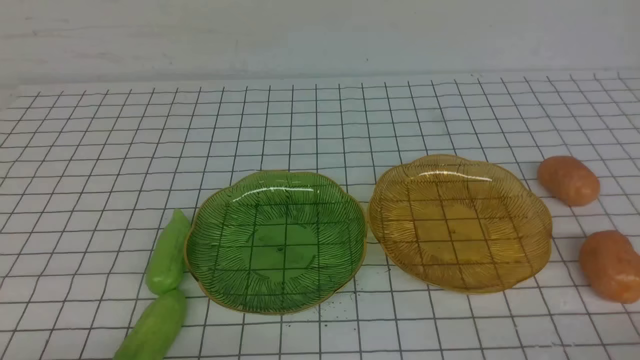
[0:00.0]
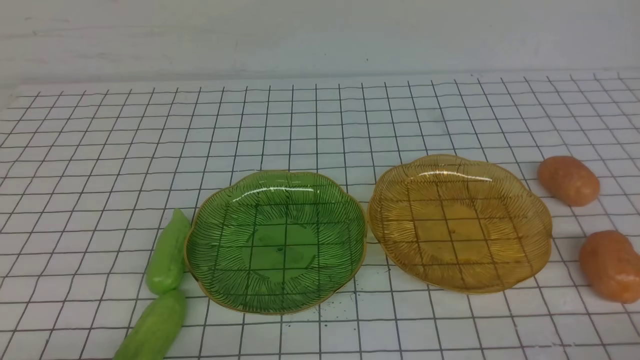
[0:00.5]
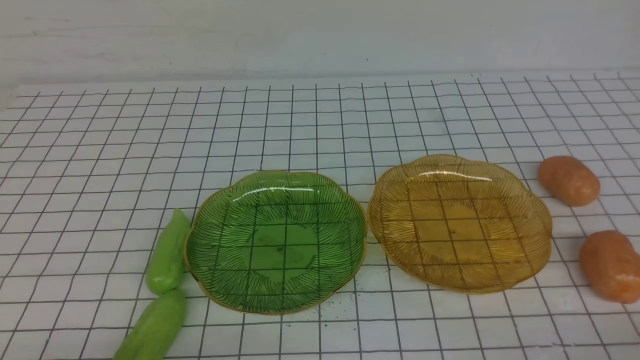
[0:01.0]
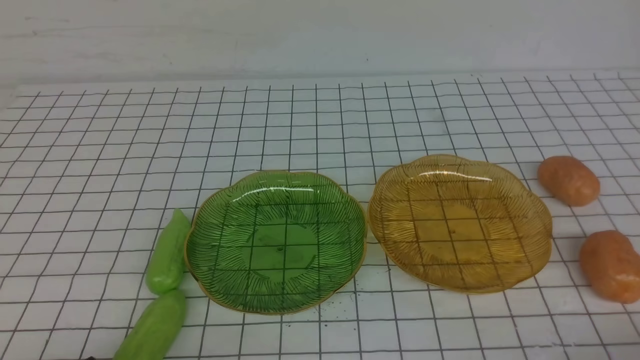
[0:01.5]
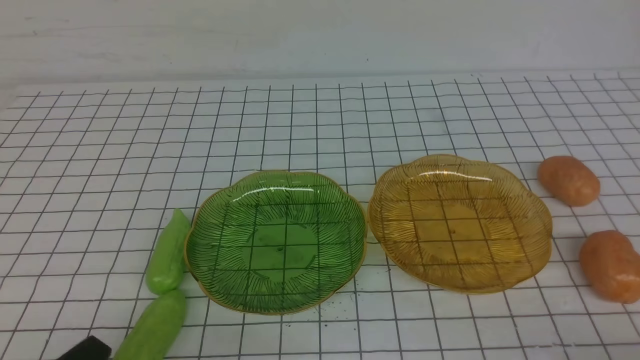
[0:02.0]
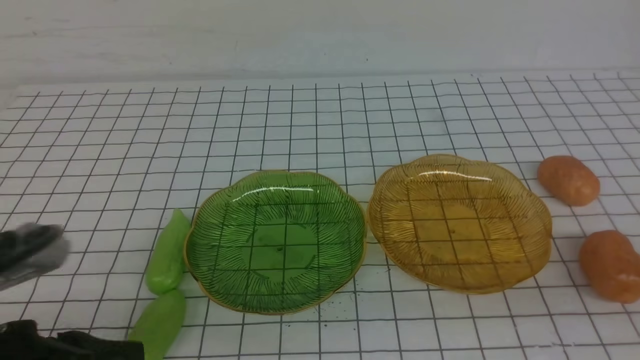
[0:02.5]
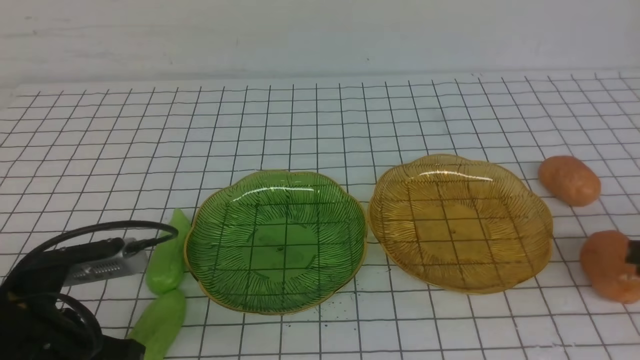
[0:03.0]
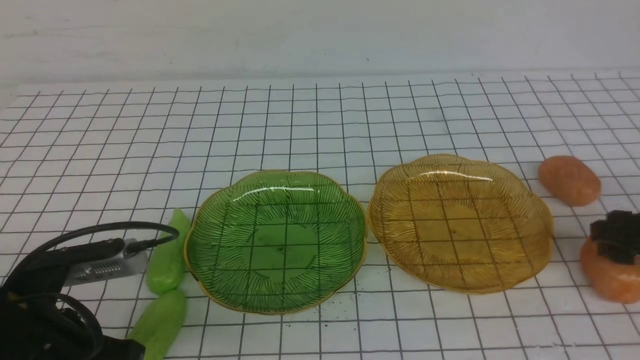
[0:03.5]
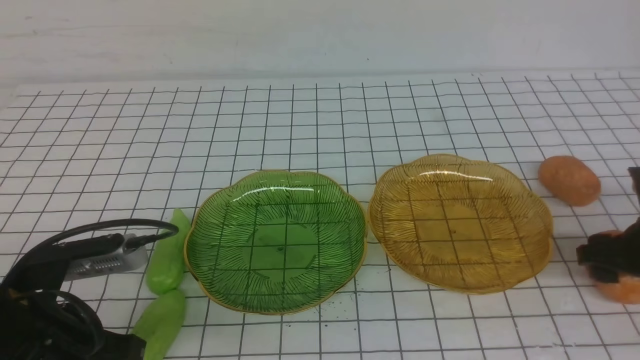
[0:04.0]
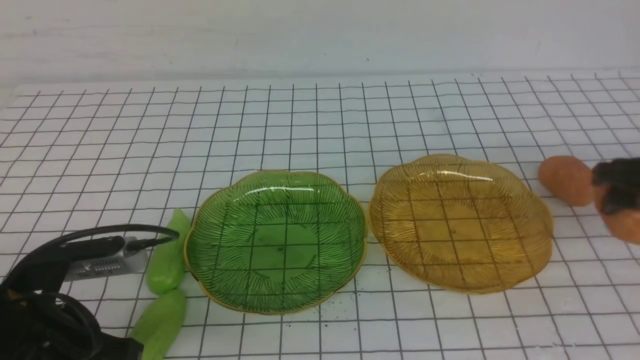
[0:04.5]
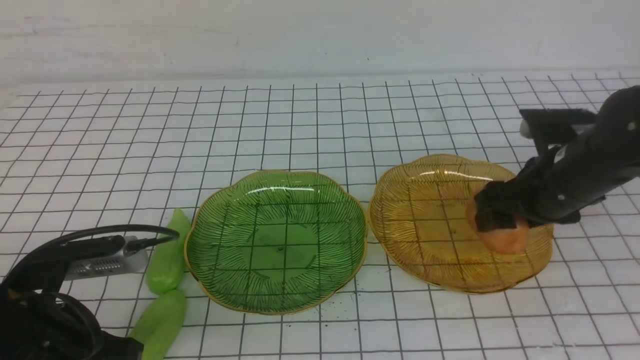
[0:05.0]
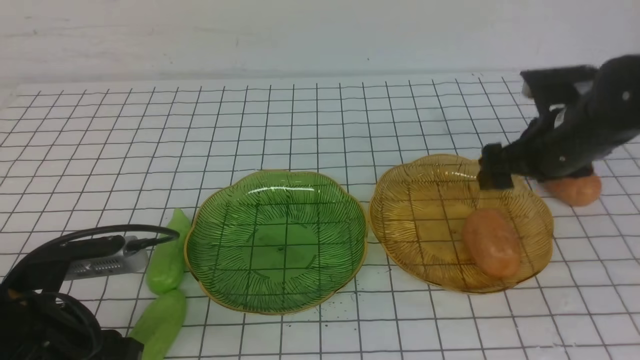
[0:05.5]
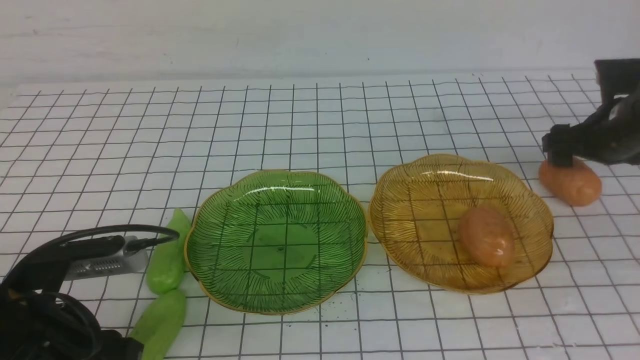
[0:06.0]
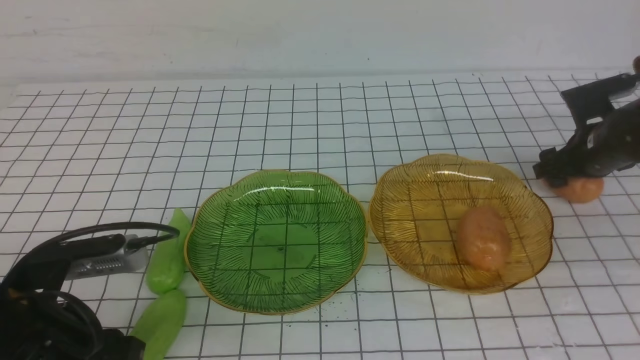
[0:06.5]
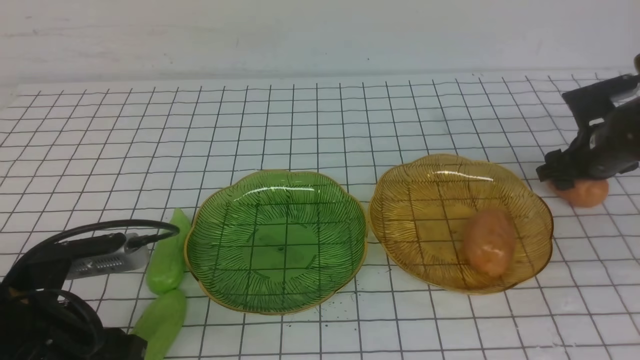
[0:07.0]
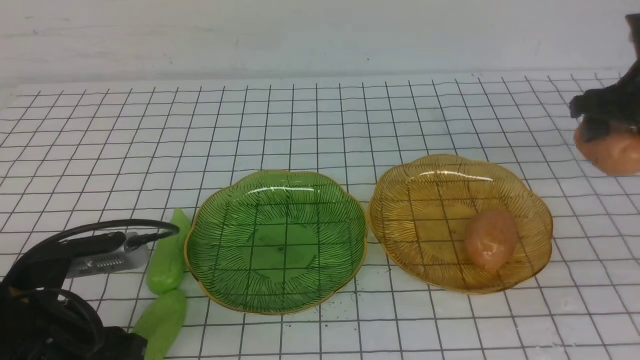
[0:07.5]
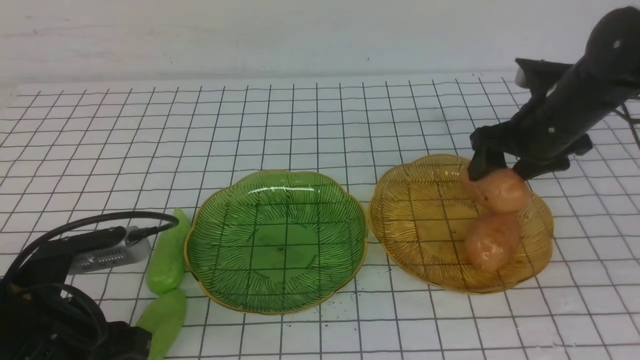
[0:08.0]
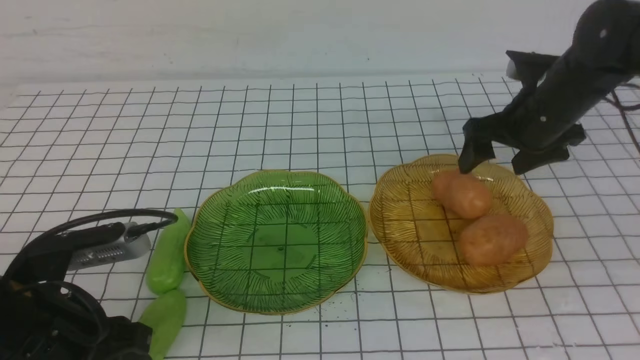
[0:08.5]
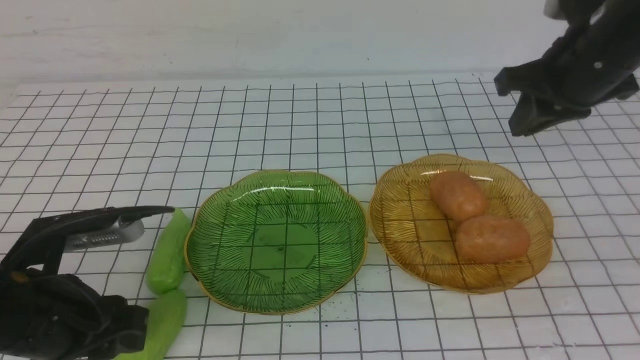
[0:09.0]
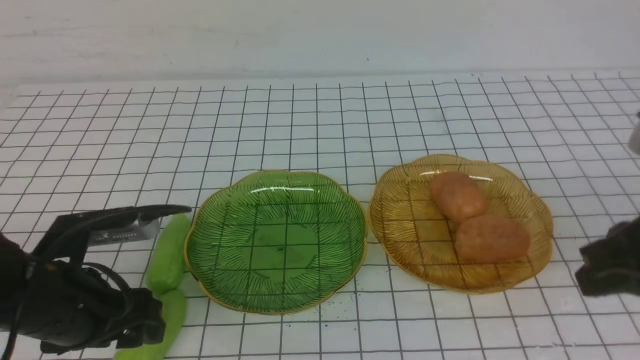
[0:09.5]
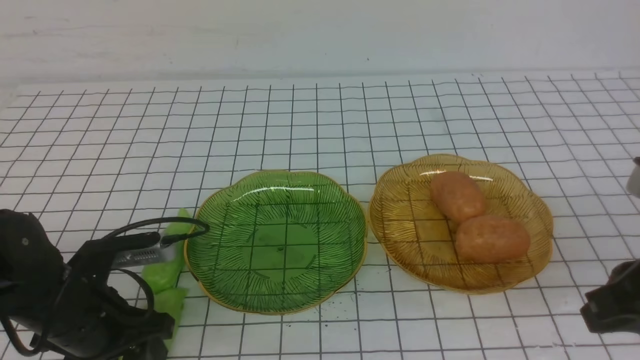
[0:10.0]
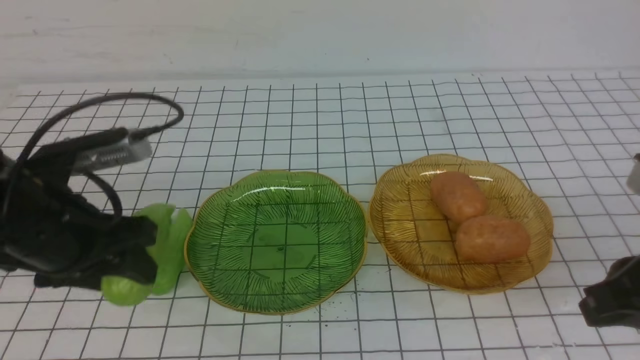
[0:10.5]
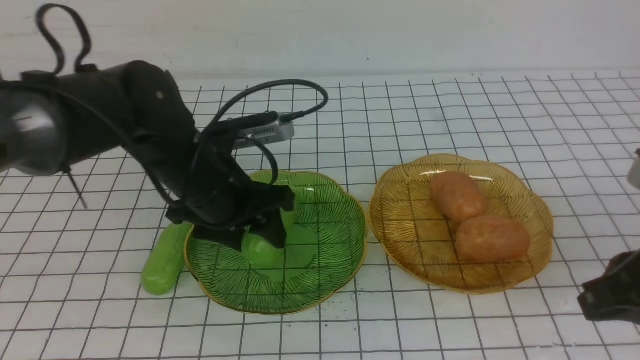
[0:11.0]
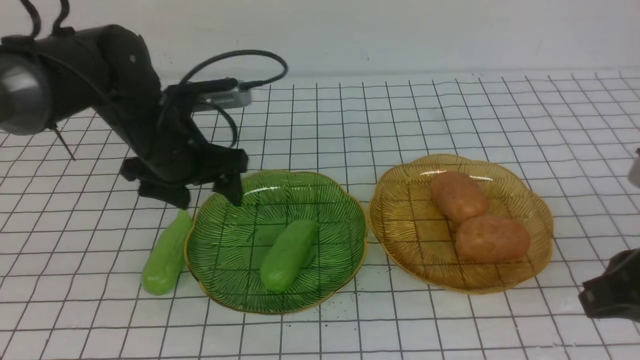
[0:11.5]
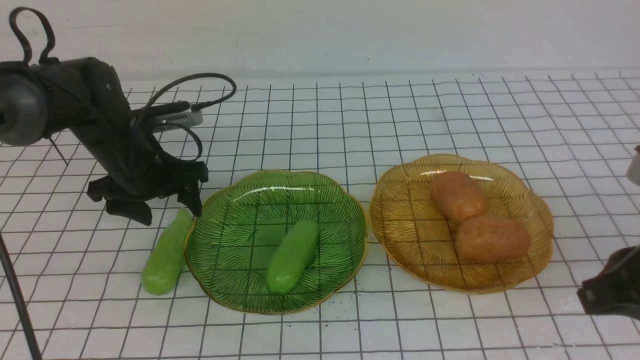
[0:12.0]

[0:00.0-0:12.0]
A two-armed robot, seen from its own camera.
Step, 0:00.0 to 0:08.0: Grab a potato with your right arm and put it on the right plate.
Step, 0:09.0 to 0:11.0: use the left arm to grab a chayote and put it into the left plate.
0:02.0 to 0:04.0: The right gripper moves forward, some 20 cm, and opens its fingers; the left gripper goes approximately 10 cm forward.
0:04.0 to 0:06.0: The left gripper opens its fingers. Meanwhile the right gripper shifts approximately 15 cm forward.
0:06.0 to 0:08.0: The right gripper heads to the left, covering some 10 cm, and goes upward and returns, some 5 cm each way.
0:08.0 to 0:10.0: The right gripper travels backward by roughly 25 cm, and closes its fingers. Meanwhile the left gripper goes about 5 cm forward and downward.
0:10.0 to 0:12.0: The left gripper heads forward, covering about 20 cm.

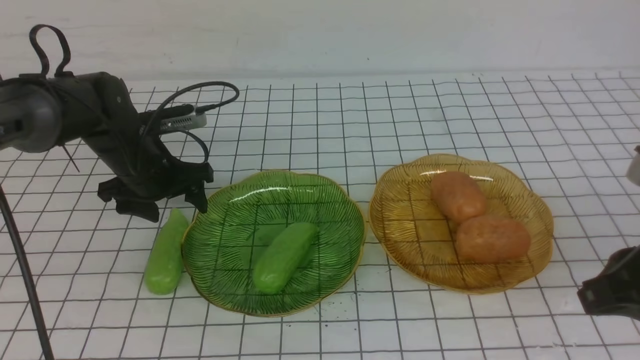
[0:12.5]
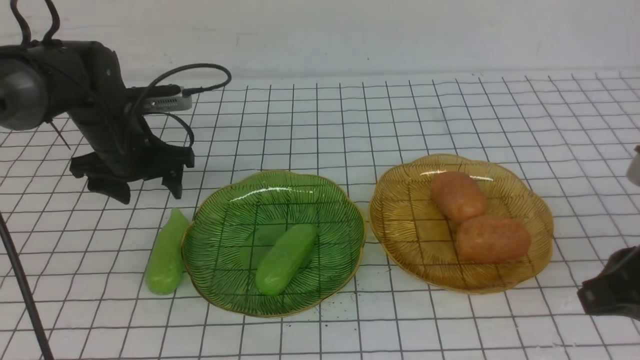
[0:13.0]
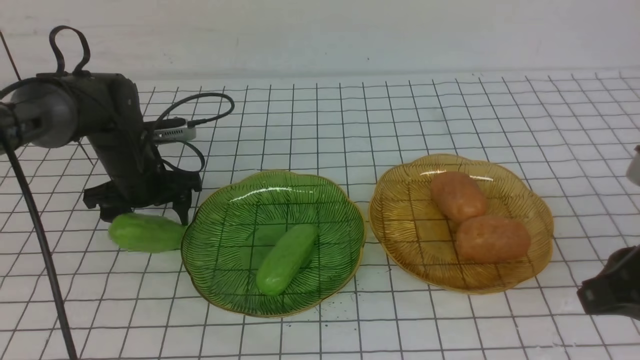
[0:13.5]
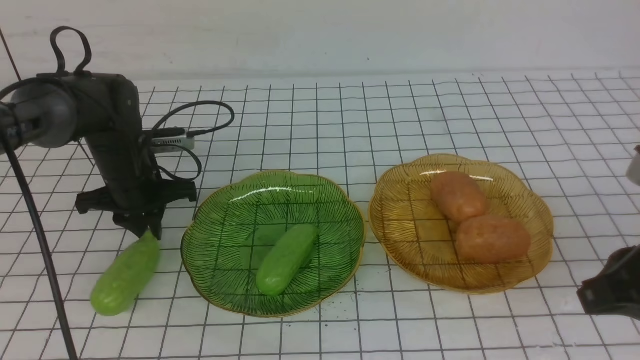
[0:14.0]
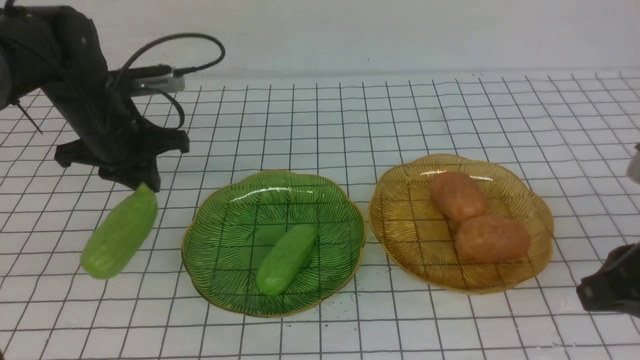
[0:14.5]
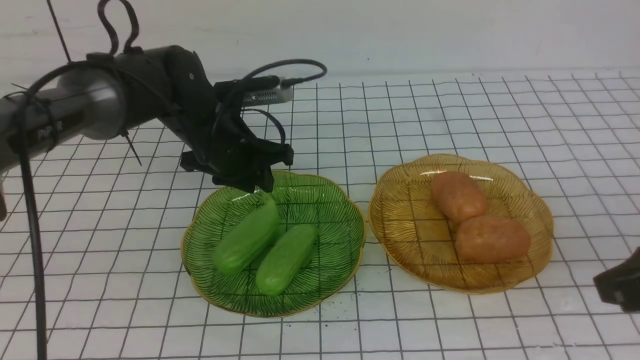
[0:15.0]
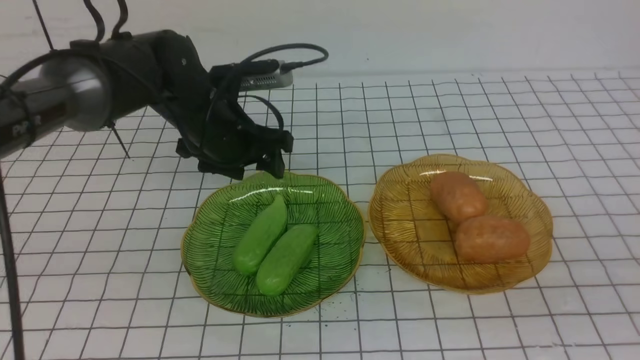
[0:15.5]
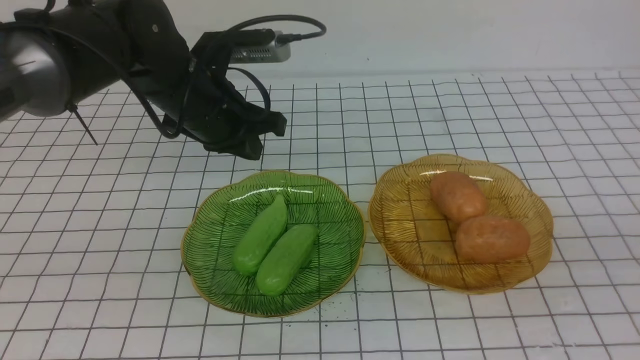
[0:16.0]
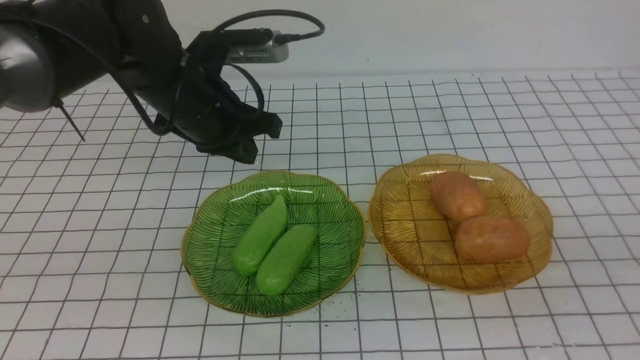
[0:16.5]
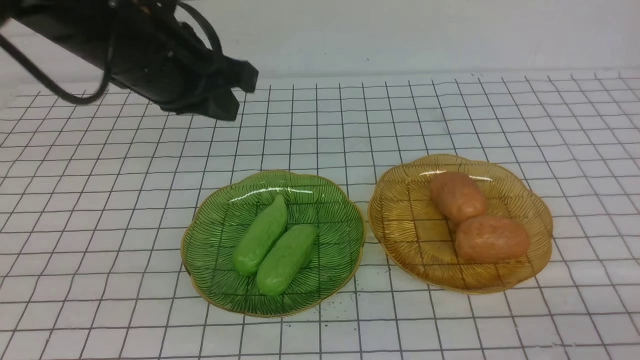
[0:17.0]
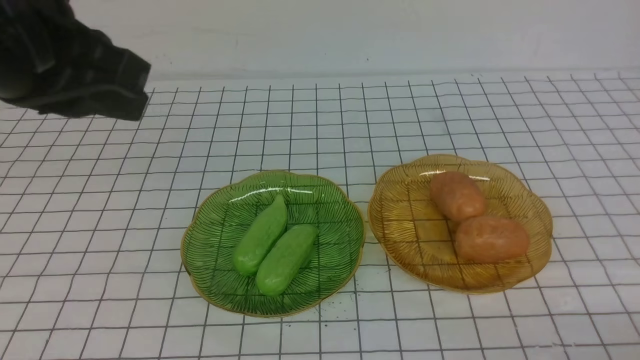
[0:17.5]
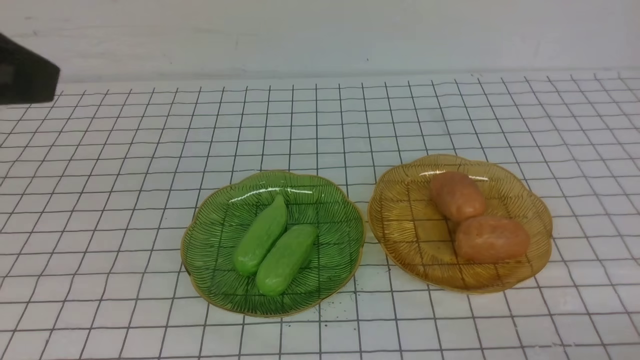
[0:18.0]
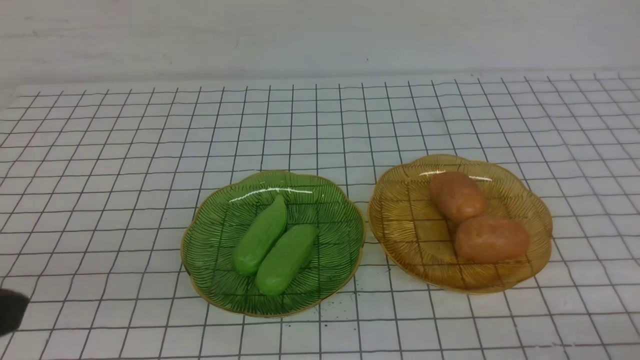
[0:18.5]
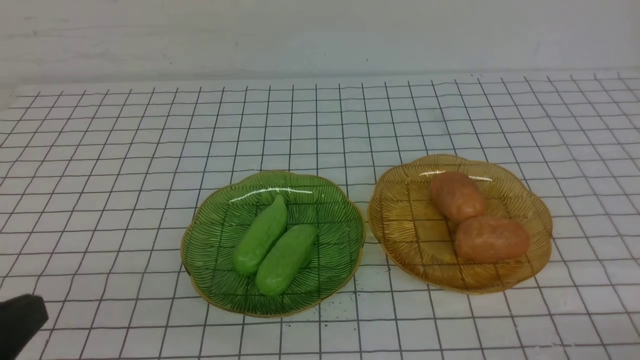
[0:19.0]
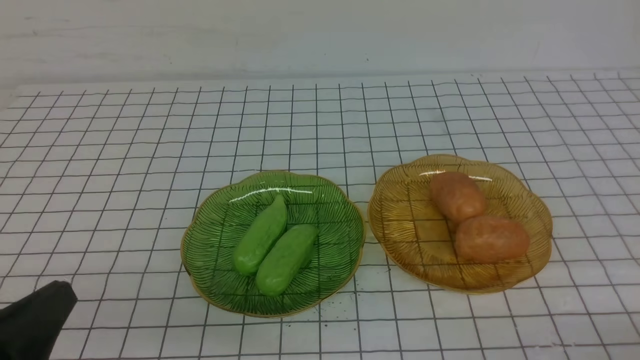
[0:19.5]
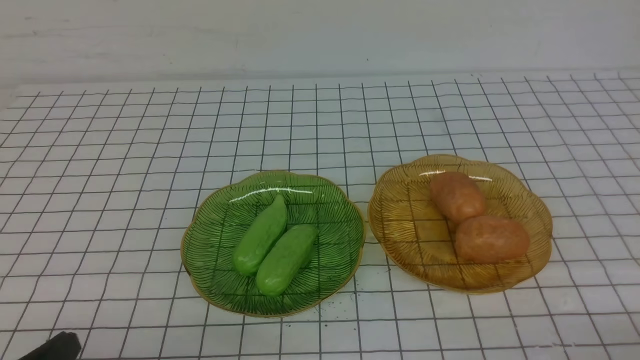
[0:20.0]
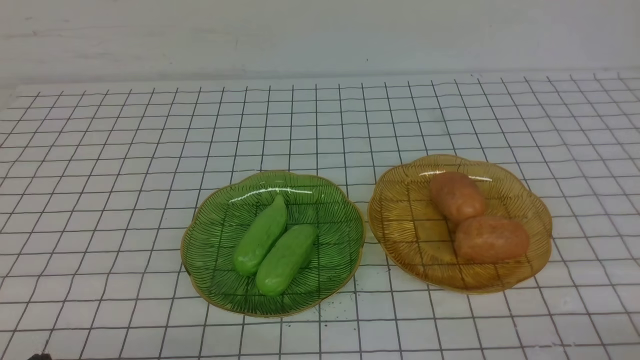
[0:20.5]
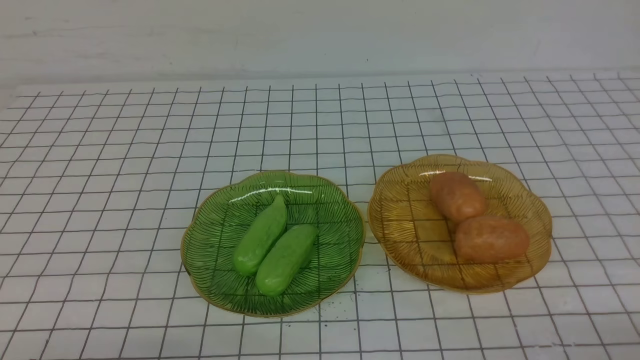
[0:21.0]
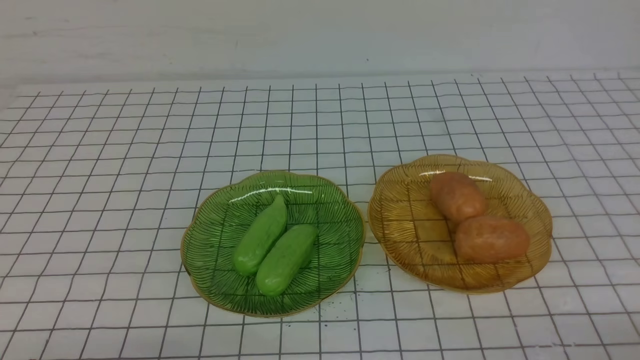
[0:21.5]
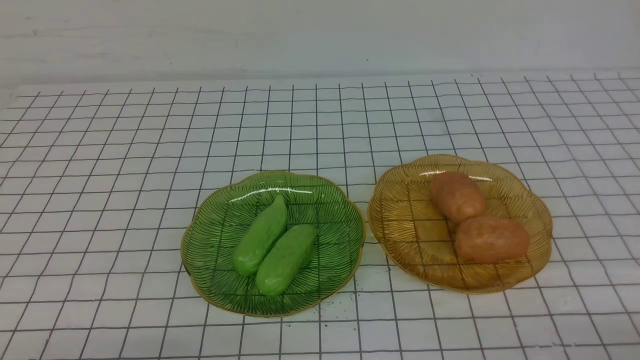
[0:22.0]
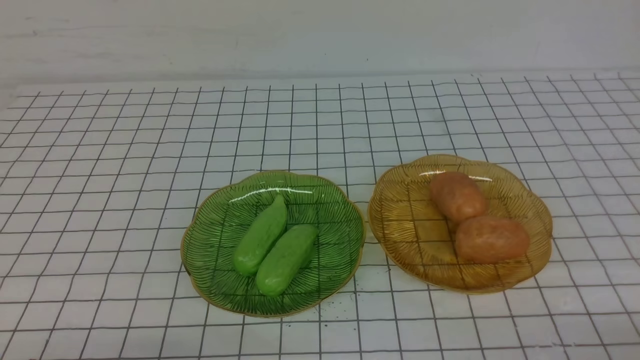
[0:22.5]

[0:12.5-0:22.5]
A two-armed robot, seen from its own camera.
Step, 0:12.5 to 0:15.0: use the left arm to grab a chayote and put it into the left plate.
0:12.5 to 0:14.5: The left gripper travels upward by approximately 5 cm, and closes up.
0:14.5 to 0:16.5: The right gripper heads backward, covering some 15 cm, while the left gripper heads to the right and upward, covering roughly 10 cm, and opens and closes again.
0:16.5 to 0:18.5: The left gripper goes roughly 30 cm backward, while the right gripper is displaced downward by roughly 15 cm.
0:20.5 to 0:22.5: Both grippers stay put.
